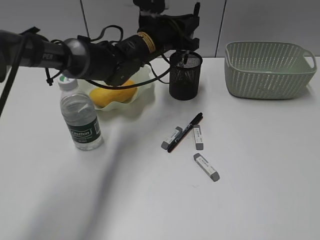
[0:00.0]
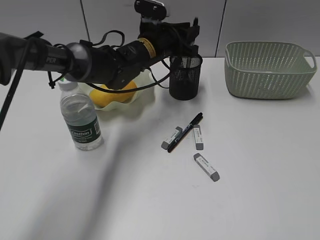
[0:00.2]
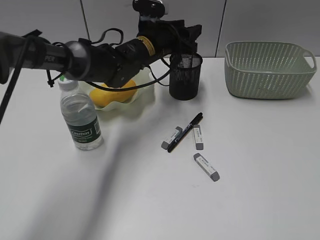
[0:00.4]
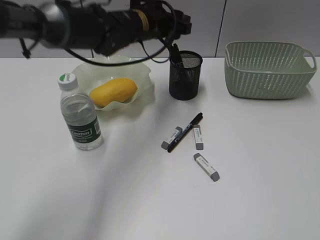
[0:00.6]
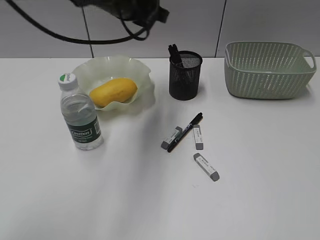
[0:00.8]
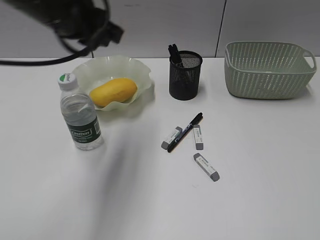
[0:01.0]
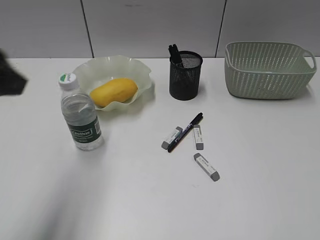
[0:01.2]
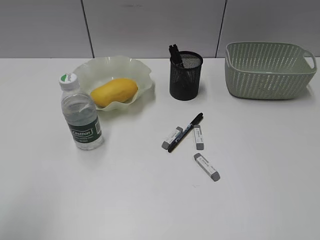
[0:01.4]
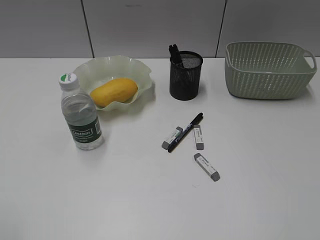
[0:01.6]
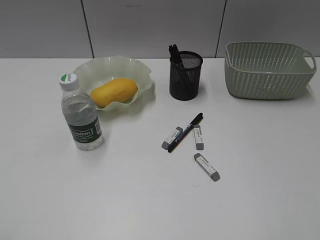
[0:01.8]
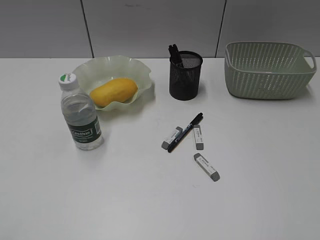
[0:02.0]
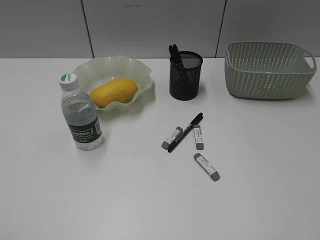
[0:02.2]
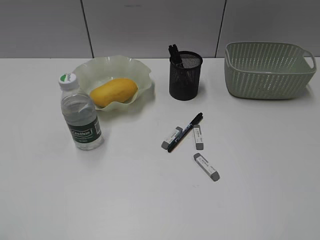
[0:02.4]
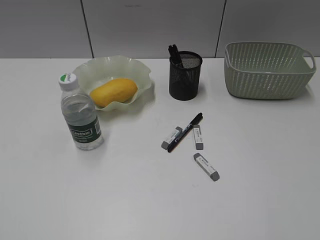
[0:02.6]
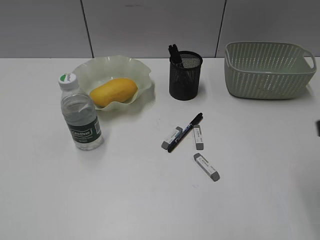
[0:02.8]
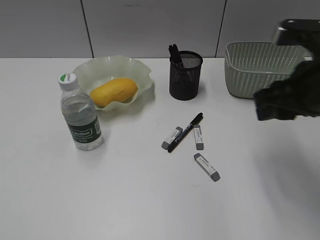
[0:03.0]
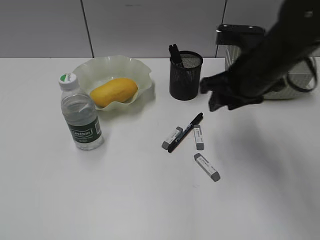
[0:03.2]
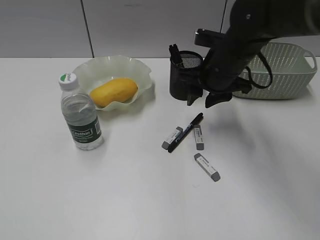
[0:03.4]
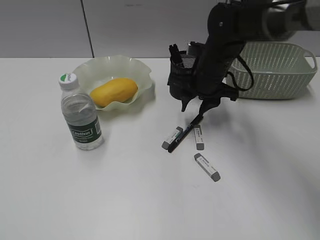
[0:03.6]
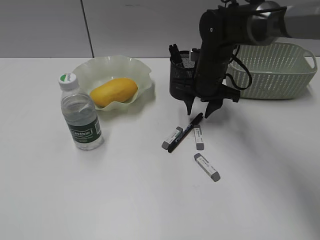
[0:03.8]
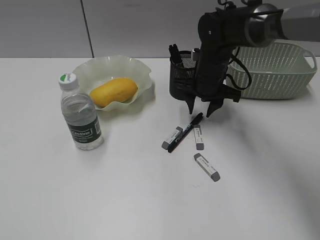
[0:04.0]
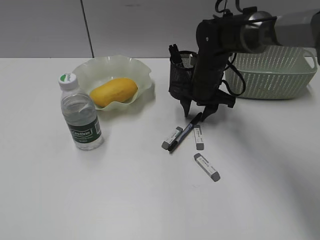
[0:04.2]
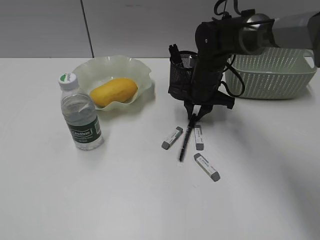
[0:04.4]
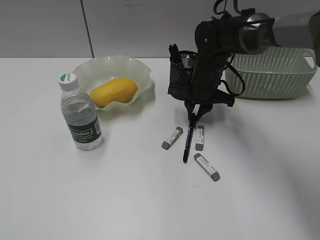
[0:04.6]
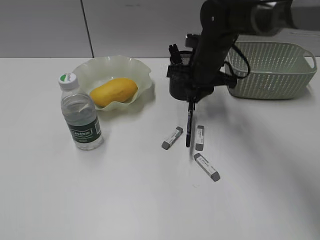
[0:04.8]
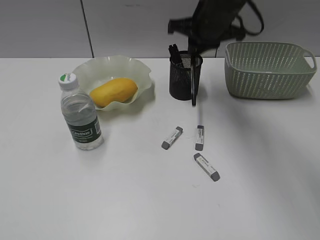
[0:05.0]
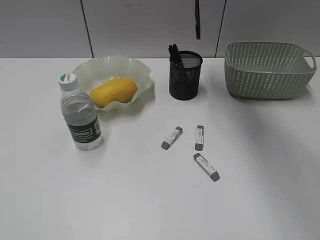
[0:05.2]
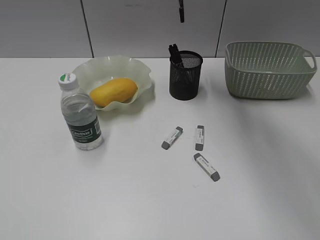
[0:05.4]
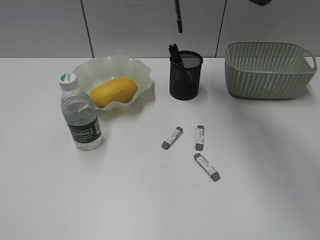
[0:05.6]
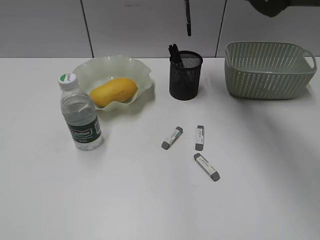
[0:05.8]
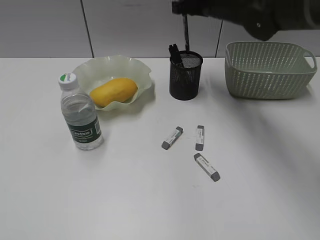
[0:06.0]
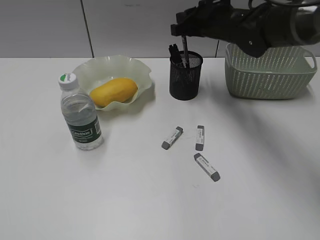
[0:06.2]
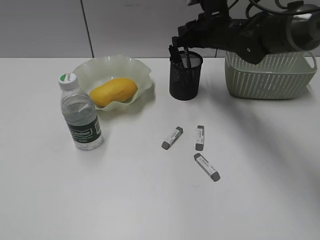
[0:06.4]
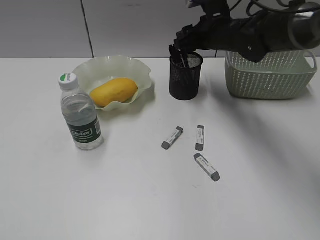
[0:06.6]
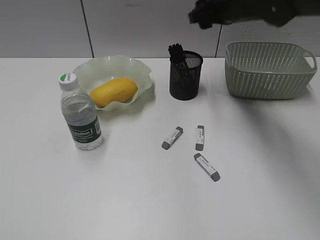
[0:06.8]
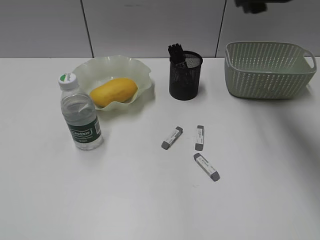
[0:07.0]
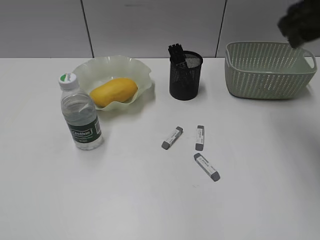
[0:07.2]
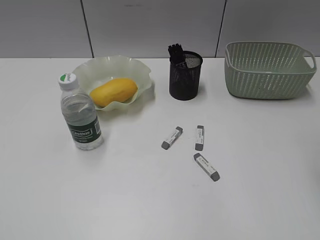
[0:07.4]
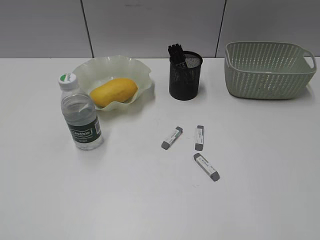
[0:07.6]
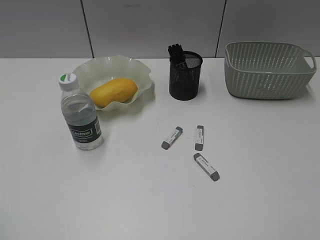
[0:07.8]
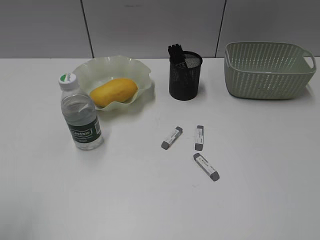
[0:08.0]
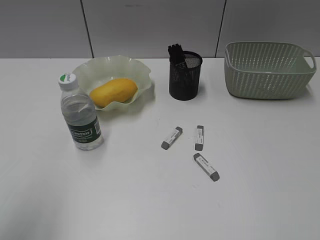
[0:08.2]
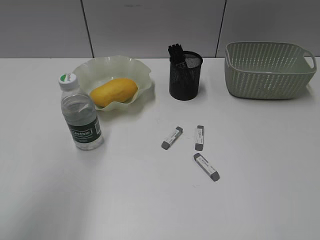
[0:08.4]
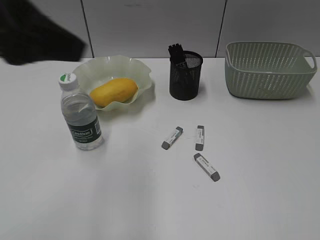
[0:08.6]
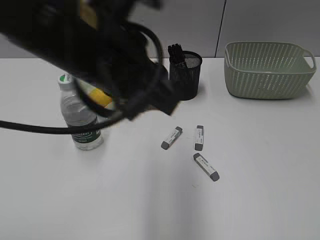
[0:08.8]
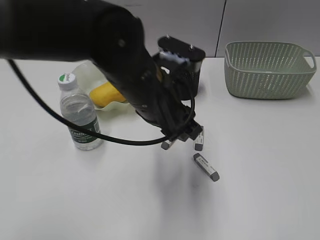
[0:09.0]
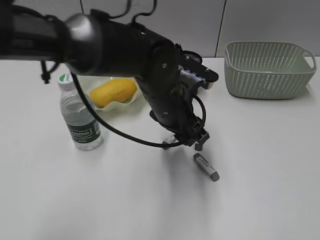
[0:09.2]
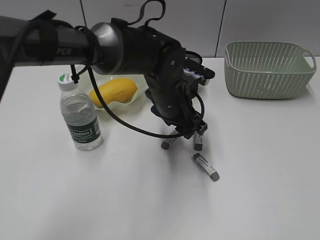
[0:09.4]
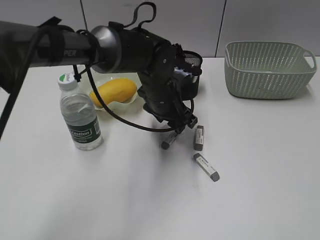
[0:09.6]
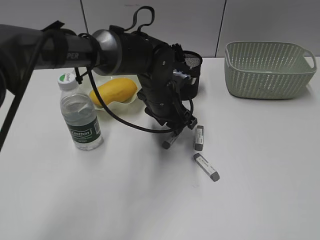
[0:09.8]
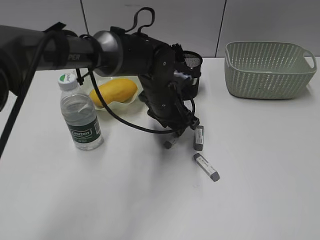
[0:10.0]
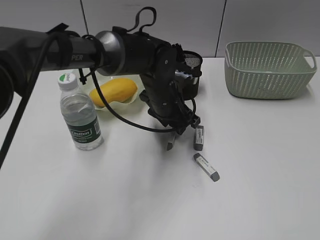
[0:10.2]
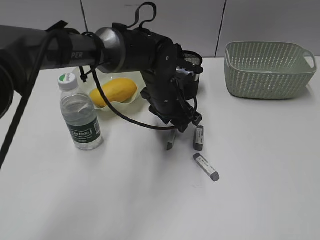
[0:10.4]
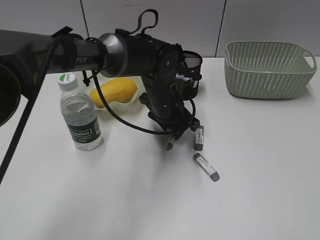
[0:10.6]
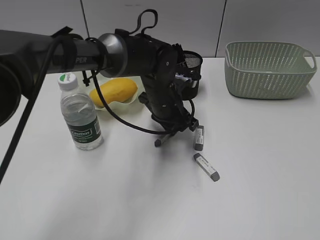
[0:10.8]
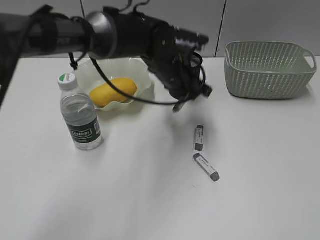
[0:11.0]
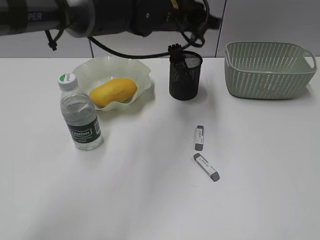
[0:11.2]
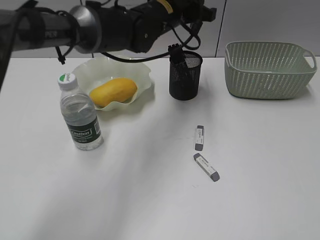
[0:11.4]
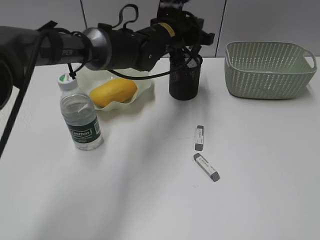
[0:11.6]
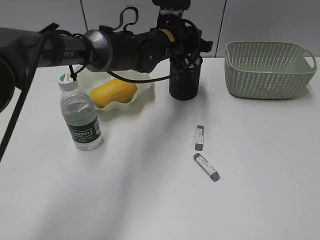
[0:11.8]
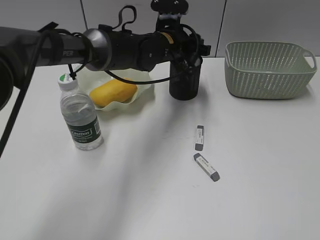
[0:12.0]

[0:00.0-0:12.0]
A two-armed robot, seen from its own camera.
Step, 0.6 to 4.6 s: Grasp the black pen with right gripper.
Step, 4.8 to 6.6 s: Place the black pen in pen holder with right gripper.
Step, 6.8 to 10.8 s: Grasp the eraser with left gripper.
0.0 to 1.6 s: The left gripper shifts some 50 cm backward and to the left.
1.6 to 3.0 s: The right gripper is displaced forward and to the left by approximately 25 cm.
3.0 to 4.4 s: The right gripper travels forward, downward and to the left by approximately 25 cm.
4.4 to 6.0 s: The right gripper shifts approximately 15 cm upward.
6.0 to 7.6 s: The right gripper shifts some 35 cm backward and to the right, and opens its fingers.
7.6 to 9.0 s: The right gripper travels backward by some 10 cm; the left gripper moves to the right and forward, about 40 cm.
9.0 to 10.4 s: The left gripper travels forward and downward by approximately 15 cm.
10.4 to 12.0 s: The left gripper moves forward, approximately 5 cm, and closes, then opens again.

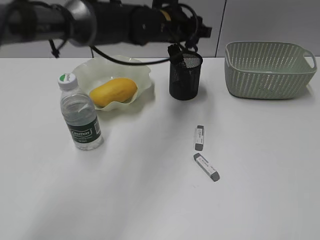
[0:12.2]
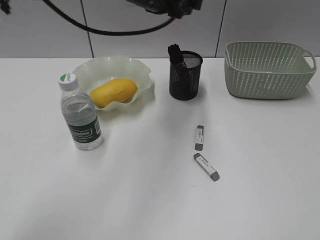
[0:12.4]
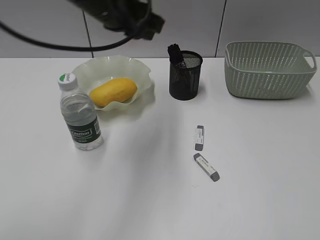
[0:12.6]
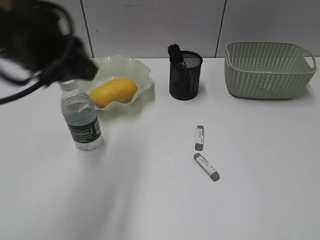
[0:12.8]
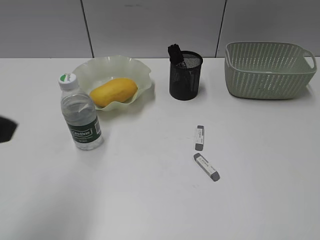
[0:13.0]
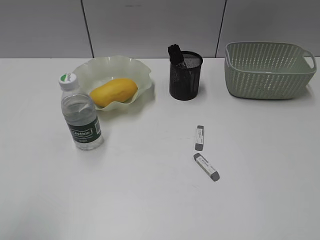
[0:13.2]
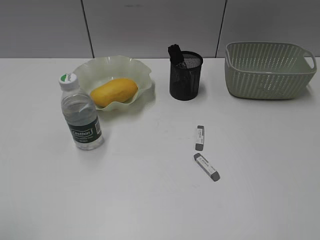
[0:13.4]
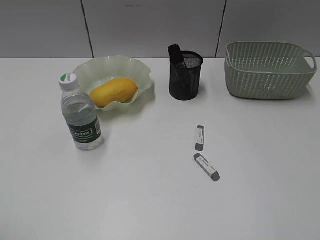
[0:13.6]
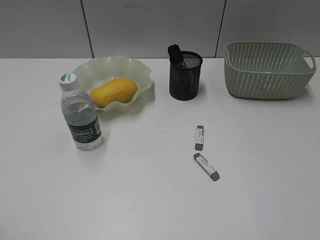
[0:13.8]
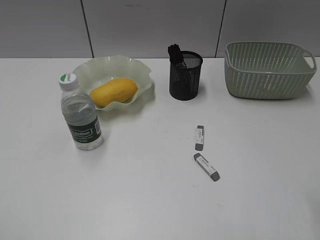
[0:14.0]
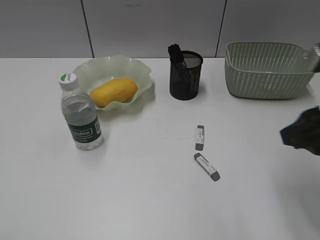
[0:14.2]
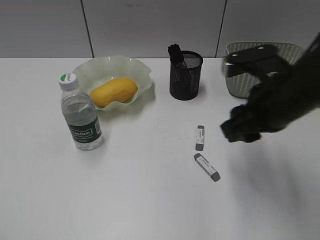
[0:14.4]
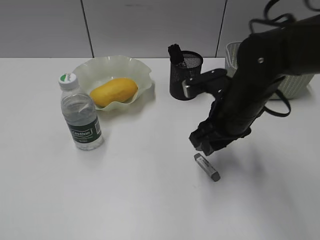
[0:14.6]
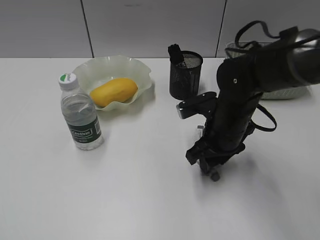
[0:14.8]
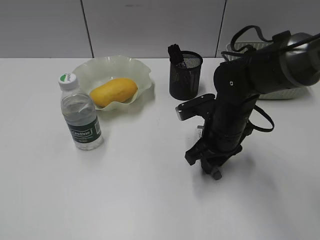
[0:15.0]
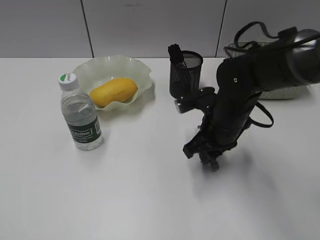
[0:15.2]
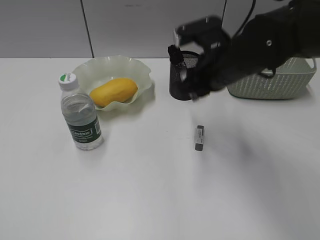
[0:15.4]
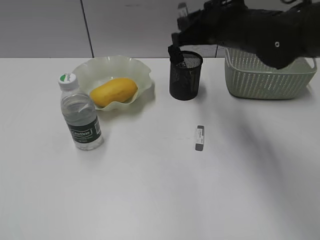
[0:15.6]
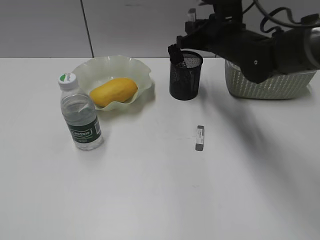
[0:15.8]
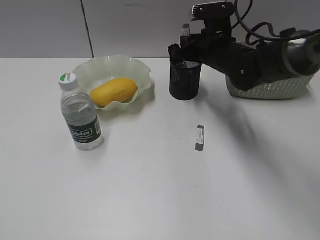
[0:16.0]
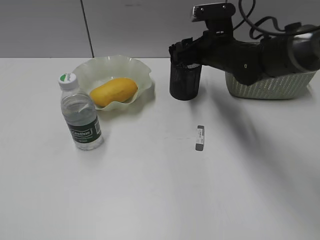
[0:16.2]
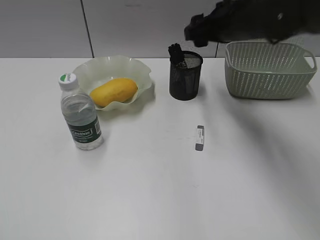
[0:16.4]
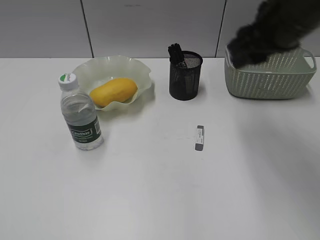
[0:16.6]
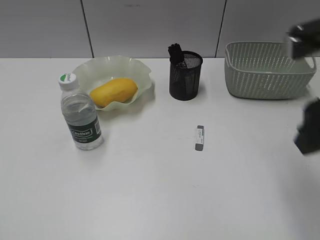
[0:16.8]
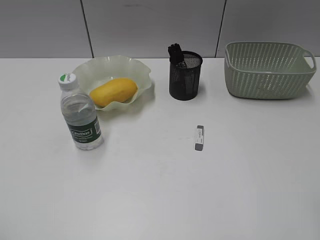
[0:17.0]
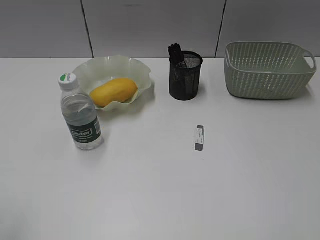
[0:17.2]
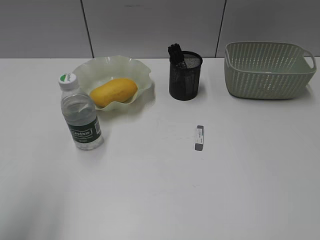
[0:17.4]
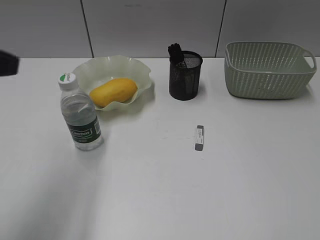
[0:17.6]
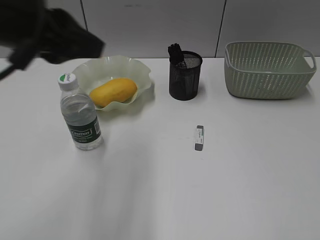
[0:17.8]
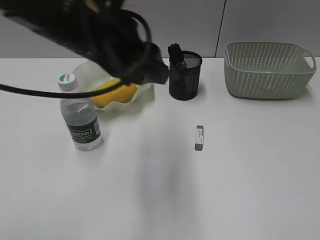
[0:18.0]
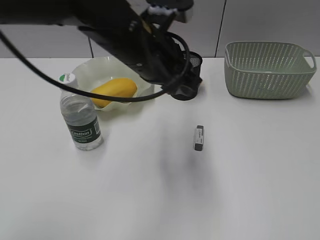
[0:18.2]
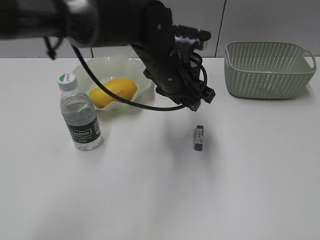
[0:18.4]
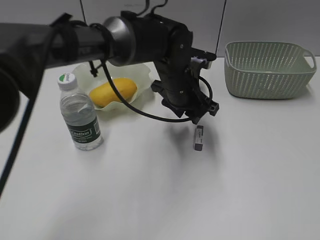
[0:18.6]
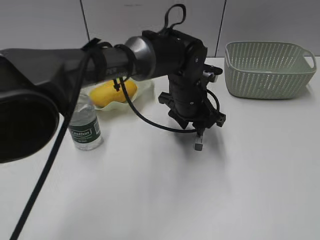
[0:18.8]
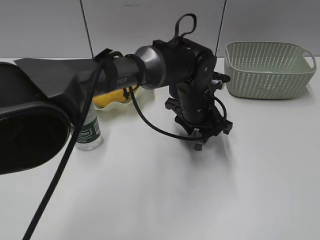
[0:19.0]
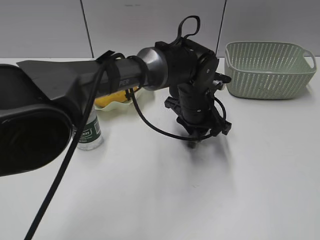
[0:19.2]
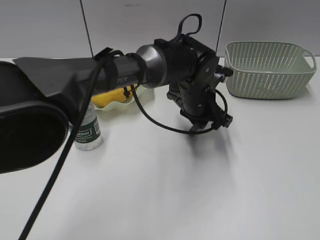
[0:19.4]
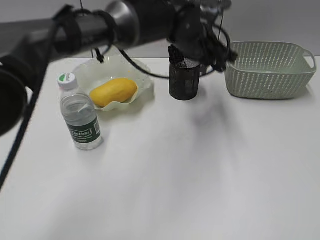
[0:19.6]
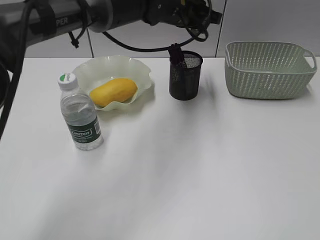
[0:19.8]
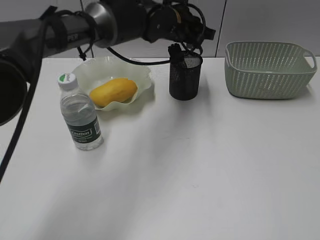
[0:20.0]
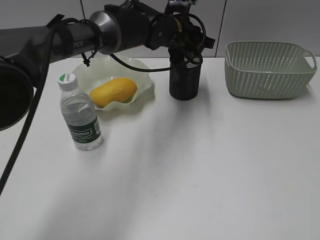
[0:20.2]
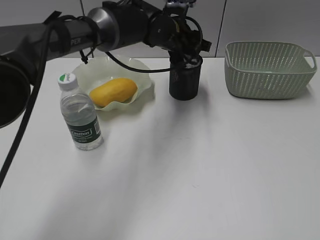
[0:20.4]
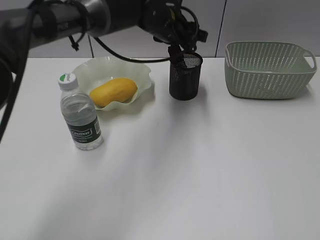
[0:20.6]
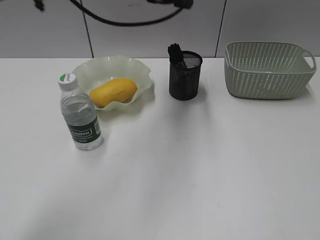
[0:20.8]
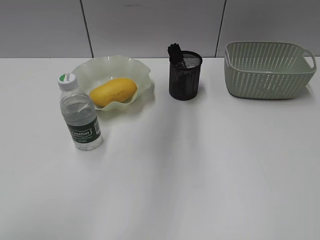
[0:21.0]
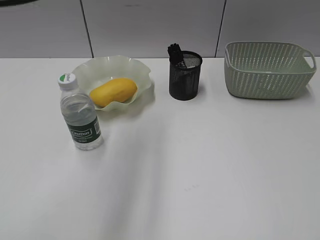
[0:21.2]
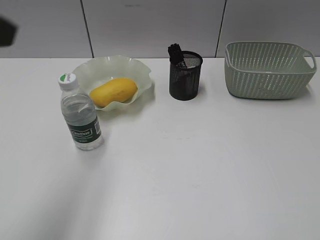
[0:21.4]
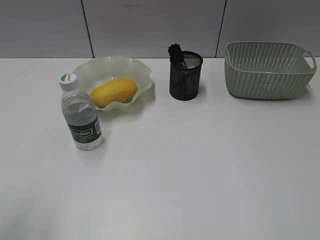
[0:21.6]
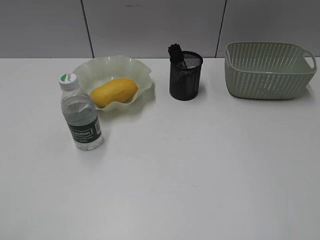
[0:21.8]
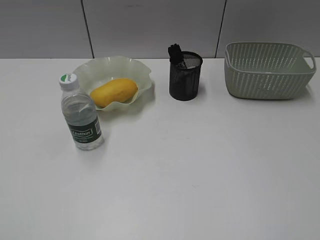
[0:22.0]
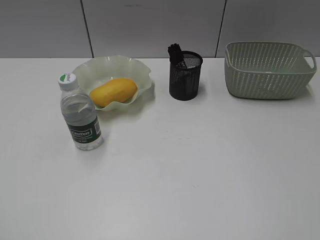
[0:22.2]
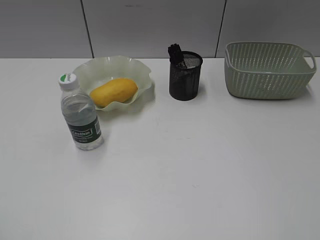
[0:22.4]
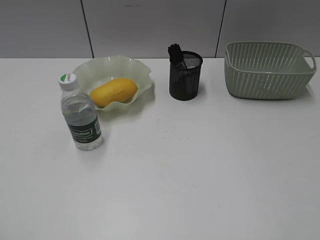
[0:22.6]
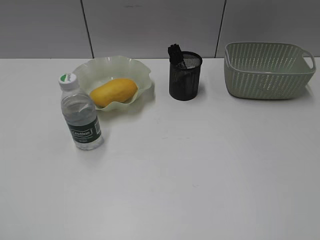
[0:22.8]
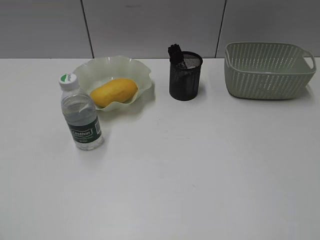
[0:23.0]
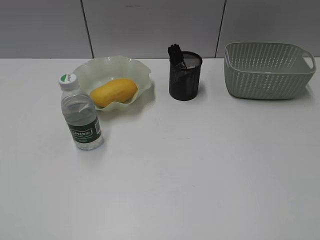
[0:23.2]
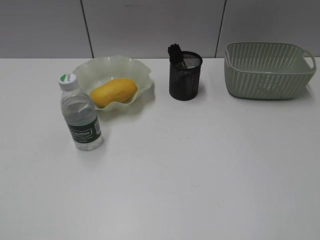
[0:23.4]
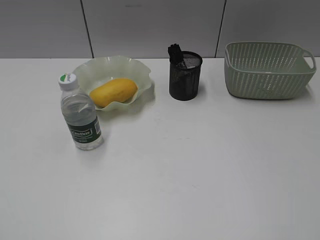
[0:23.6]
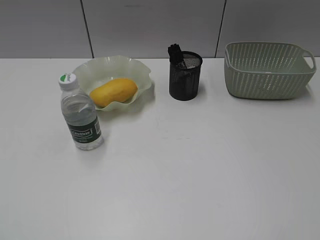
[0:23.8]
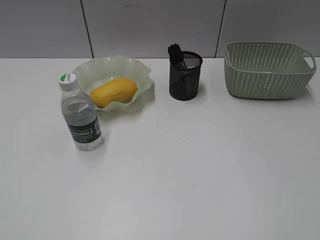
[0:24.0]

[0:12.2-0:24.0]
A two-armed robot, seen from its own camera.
Step, 12.4 to 15.0 s: Grasp the eraser with right gripper.
Step, 15.2 to 16.2 s: Place the eraser in pen holder with right gripper.
Step, 16.4 to 19.2 s: Grasp the eraser with left gripper.
Step, 19.4 to 20.4 s: Place the eraser in pen holder with left gripper.
12.2 to 13.6 s: The left gripper heads backward and to the left, covering roughly 50 cm.
13.6 to 15.2 s: The right gripper goes roughly 40 cm forward, to the left and downward, and closes its fingers.
15.2 to 16.6 s: The right gripper goes up and down, some 20 cm each way, reversing 2 times, and opens.
16.6 to 18.2 s: The left gripper travels to the right and forward by about 40 cm. Meanwhile the right gripper travels backward and to the right by roughly 35 cm.
18.2 to 19.6 s: The left gripper travels forward and to the right by some 15 cm, and reaches about 15 cm downward, then returns.
19.6 to 21.0 s: The left gripper goes up and down, roughly 15 cm each way, reversing 2 times, and opens its fingers.
21.0 to 22.6 s: The left gripper goes about 50 cm backward and to the left. Meanwhile the right gripper opens up.
